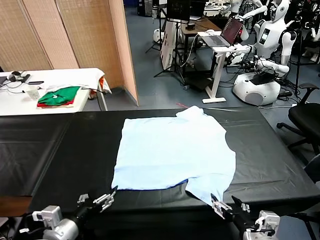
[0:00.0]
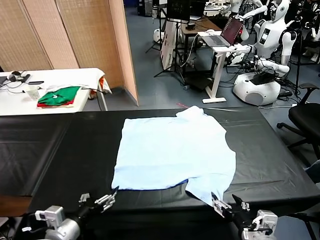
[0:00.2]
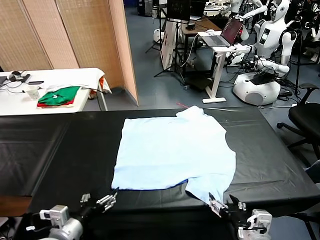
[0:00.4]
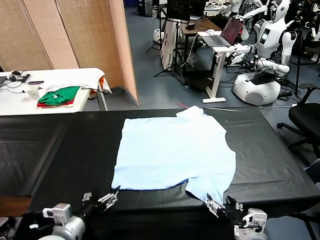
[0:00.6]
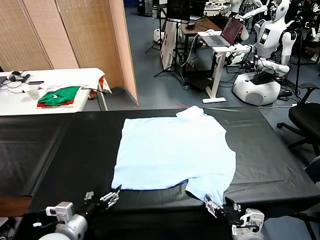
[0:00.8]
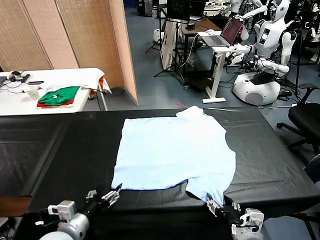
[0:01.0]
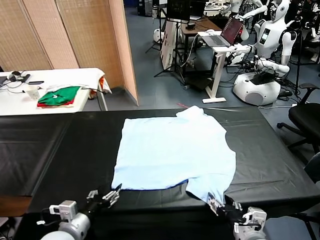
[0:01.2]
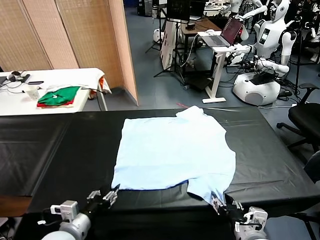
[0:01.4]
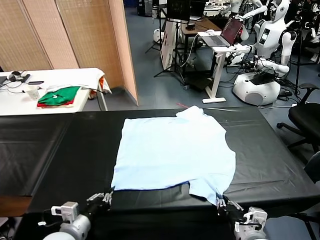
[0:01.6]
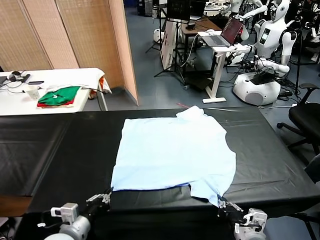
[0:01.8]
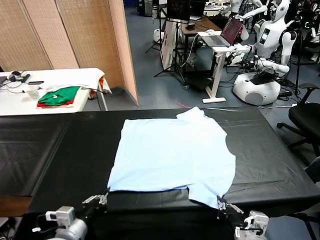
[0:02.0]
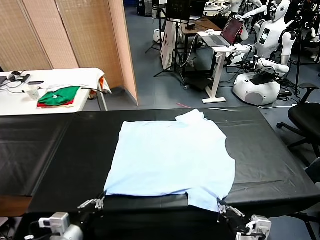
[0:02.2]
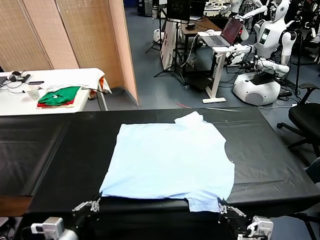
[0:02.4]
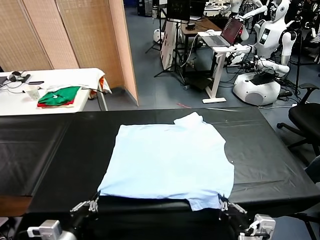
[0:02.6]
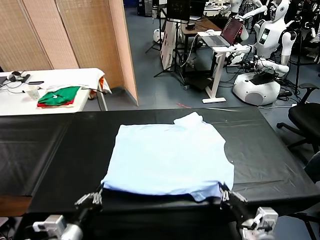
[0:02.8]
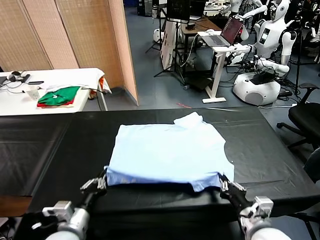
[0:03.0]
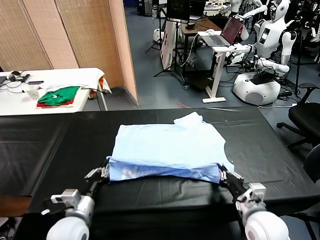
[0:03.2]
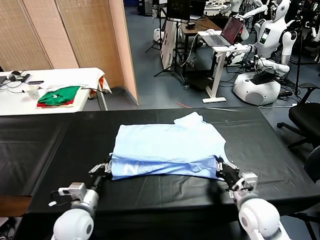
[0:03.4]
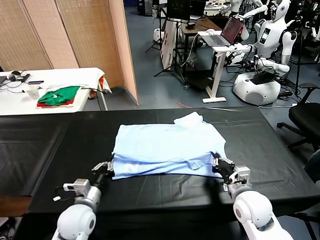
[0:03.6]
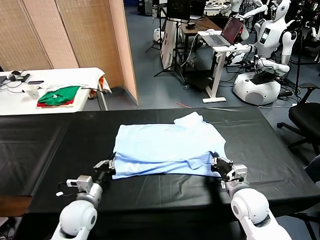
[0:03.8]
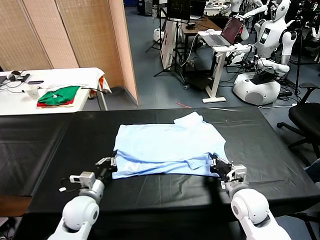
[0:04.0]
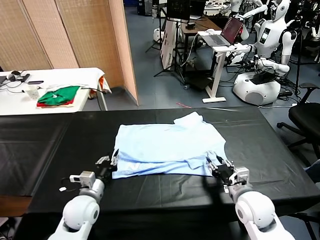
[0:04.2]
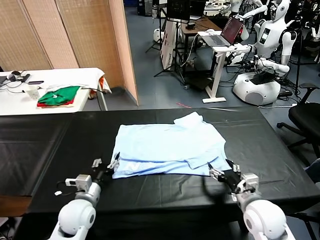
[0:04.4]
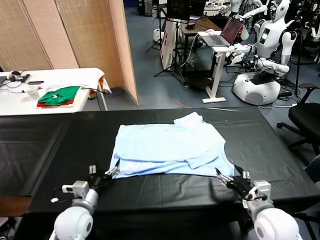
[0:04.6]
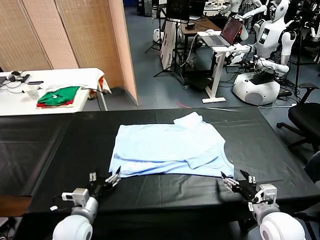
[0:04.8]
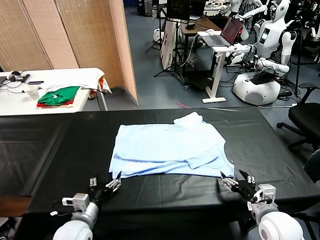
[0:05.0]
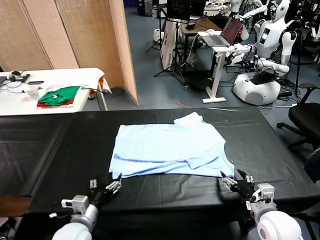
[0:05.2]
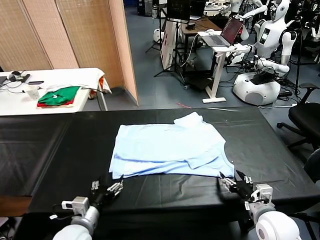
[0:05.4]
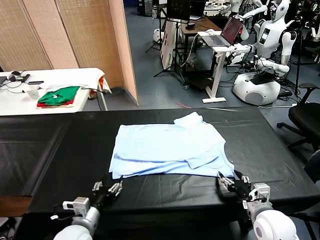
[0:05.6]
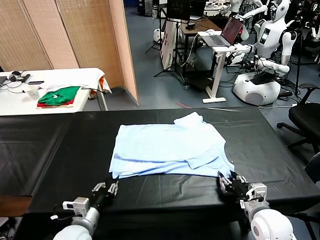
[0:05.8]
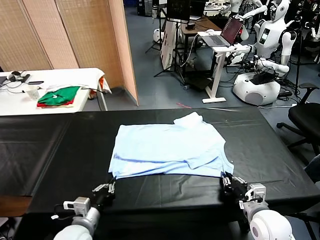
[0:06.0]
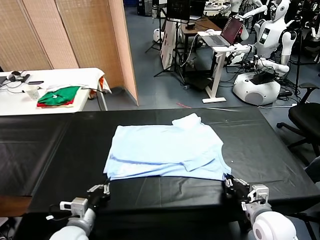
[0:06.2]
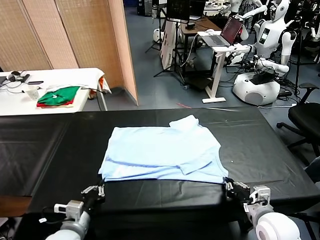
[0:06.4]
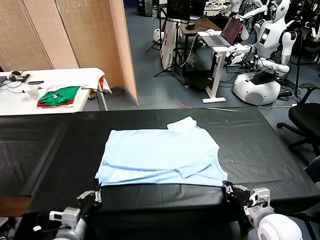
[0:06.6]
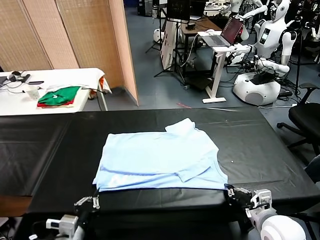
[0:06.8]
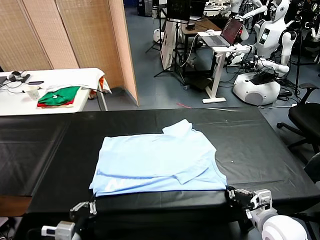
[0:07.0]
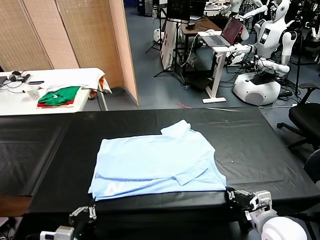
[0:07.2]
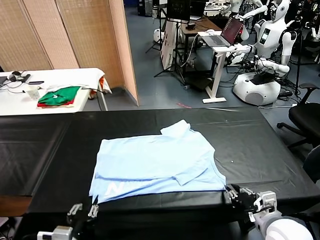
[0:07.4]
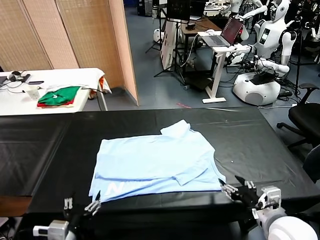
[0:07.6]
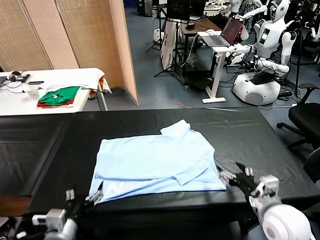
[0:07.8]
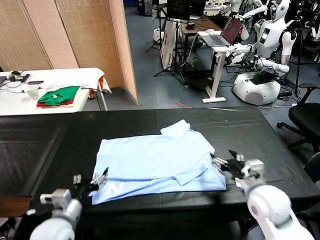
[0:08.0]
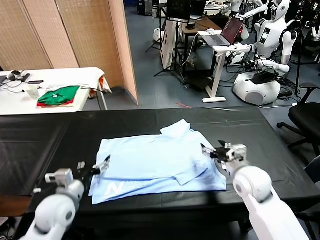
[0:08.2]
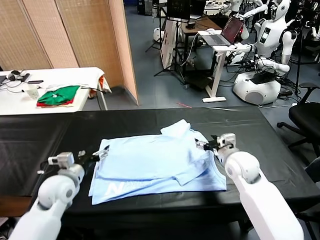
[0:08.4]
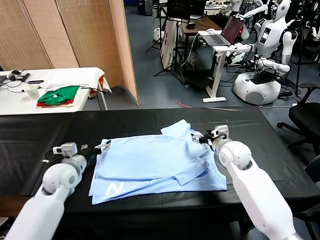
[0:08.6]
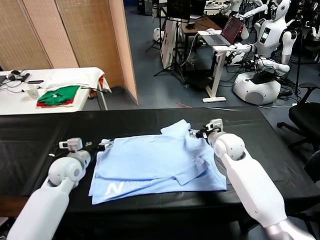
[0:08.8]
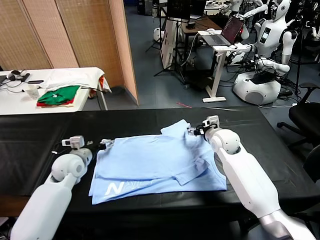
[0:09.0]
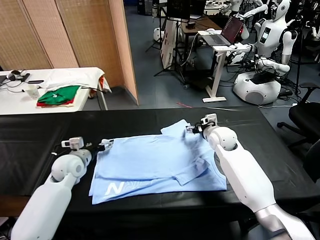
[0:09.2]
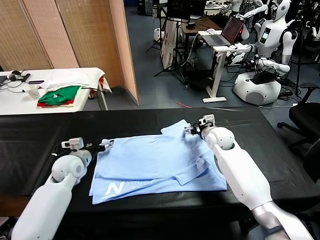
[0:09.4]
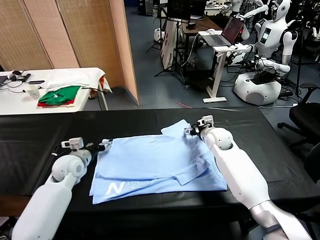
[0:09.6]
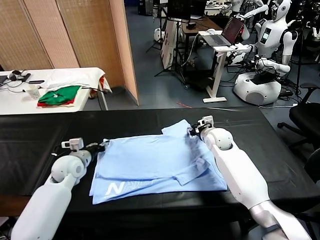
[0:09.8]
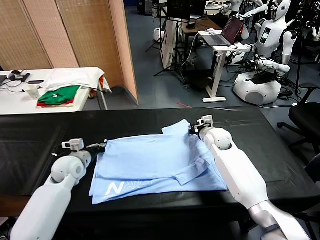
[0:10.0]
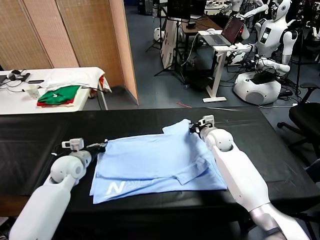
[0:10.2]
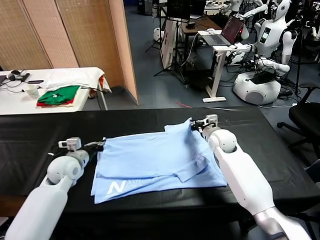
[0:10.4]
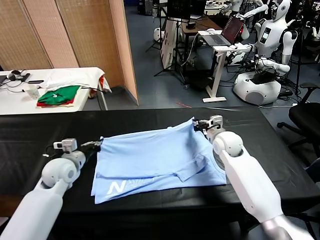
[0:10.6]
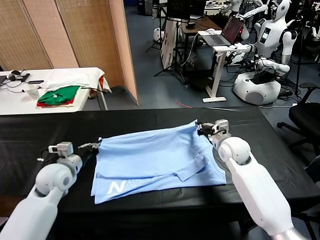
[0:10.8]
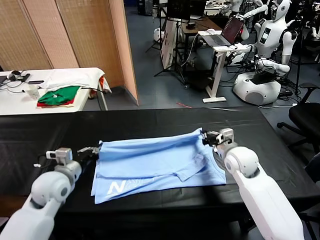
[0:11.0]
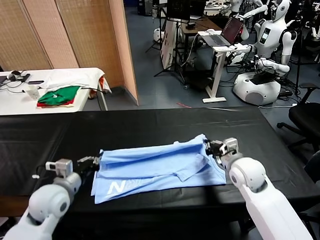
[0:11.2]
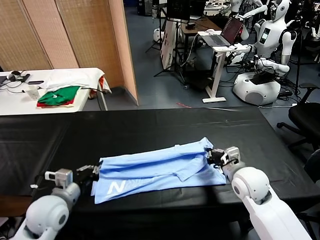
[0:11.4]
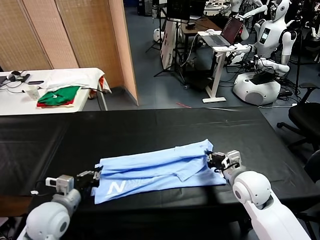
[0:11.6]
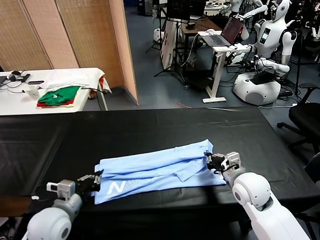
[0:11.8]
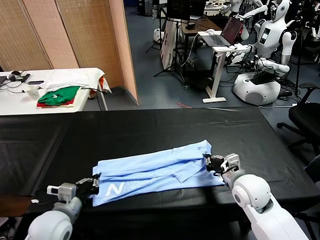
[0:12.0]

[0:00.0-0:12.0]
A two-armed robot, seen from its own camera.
Task of the whole recording: fold and organize the clothes.
Step, 0:00.0 to 0:01.6: use both grippers simultaneously to clamp the lower edge of the clothing fabric.
Step, 0:01.8 to 0:04.2: use both grippers to drag the lower edge of the fabric forward and fold it over the upper edge.
Step, 0:04.4 to 0:07.4: Drag the clothes downward with both gripper.
Step, 0:07.6 to 0:10.0: use both grippers simultaneously to clamp the upper edge of the clothing fabric.
0:01.6 to 0:03.0: The right gripper shifts approximately 10 cm forward.
0:03.0 to 0:04.4: The right gripper opens its fingers. The left gripper goes roughly 10 cm forward, and opens its fingers.
0:04.4 to 0:06.0: The left gripper travels backward by some 5 cm, and closes up, while the right gripper closes its fingers.
0:06.0 to 0:07.6: The right gripper moves upward, approximately 5 cm, and opens up. The left gripper shifts approximately 10 cm backward and upward, and opens up.
0:07.6 to 0:09.0: The grippers both shift forward by about 30 cm.
0:09.0 to 0:10.4: The left gripper closes up, while the right gripper closes its fingers.
0:10.4 to 0:12.0: The two grippers go some 20 cm backward. The right gripper opens.

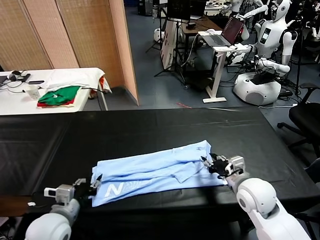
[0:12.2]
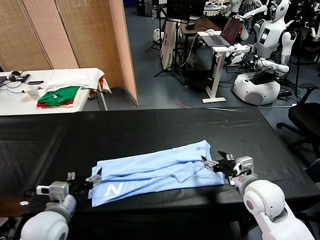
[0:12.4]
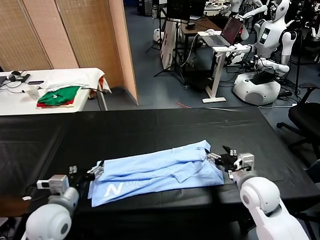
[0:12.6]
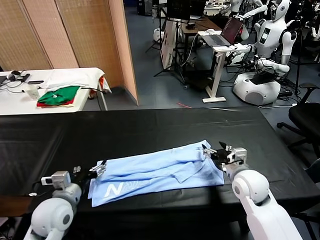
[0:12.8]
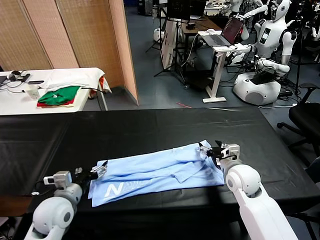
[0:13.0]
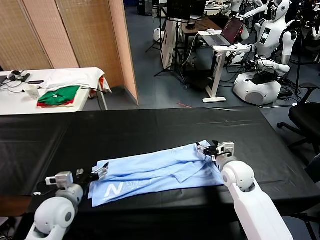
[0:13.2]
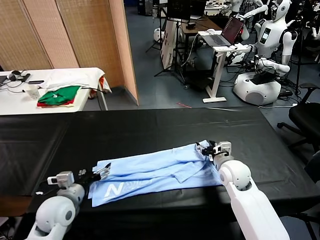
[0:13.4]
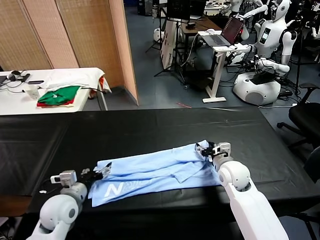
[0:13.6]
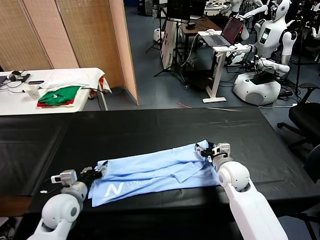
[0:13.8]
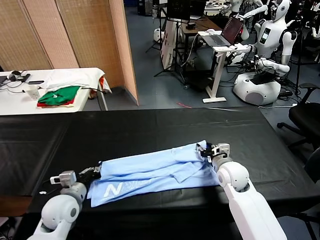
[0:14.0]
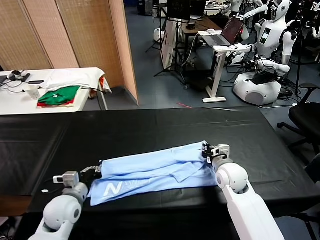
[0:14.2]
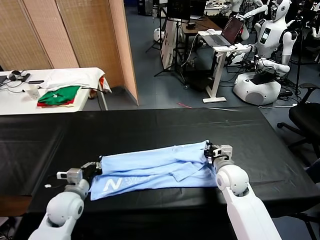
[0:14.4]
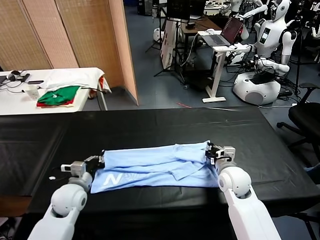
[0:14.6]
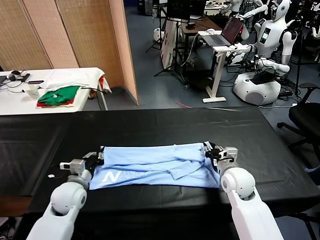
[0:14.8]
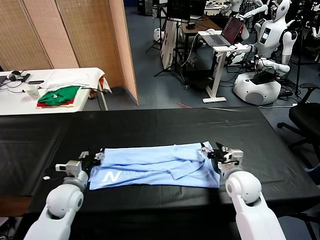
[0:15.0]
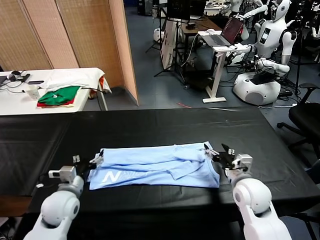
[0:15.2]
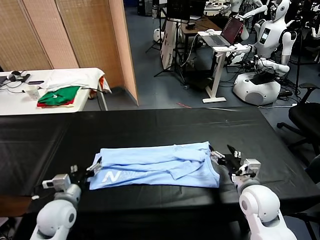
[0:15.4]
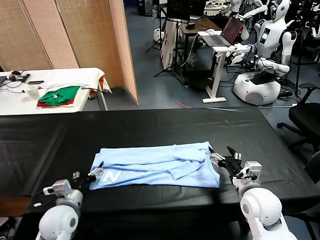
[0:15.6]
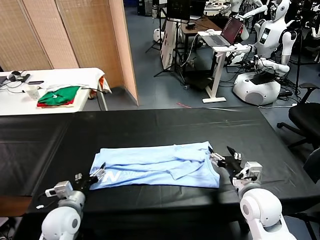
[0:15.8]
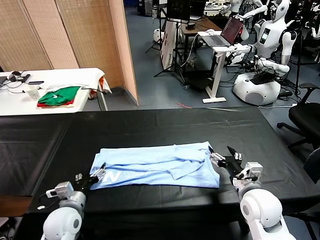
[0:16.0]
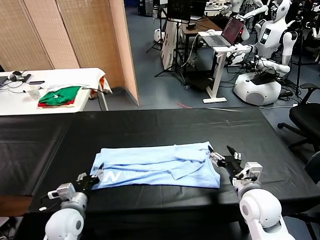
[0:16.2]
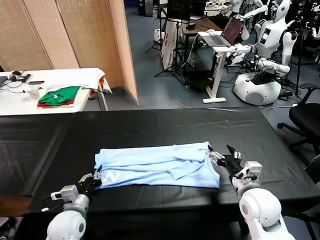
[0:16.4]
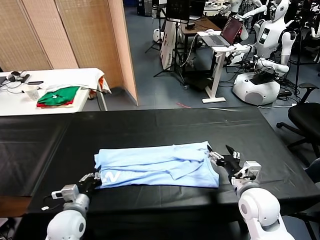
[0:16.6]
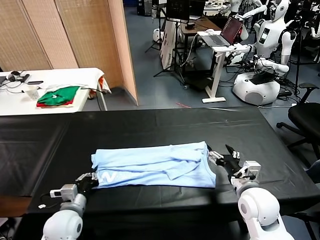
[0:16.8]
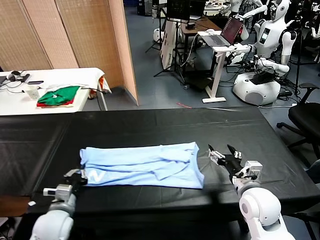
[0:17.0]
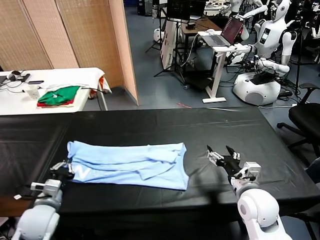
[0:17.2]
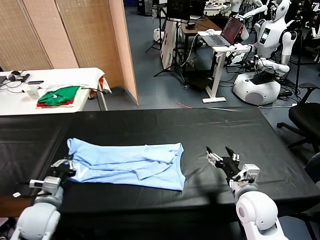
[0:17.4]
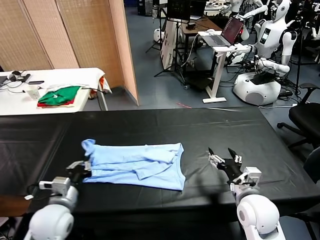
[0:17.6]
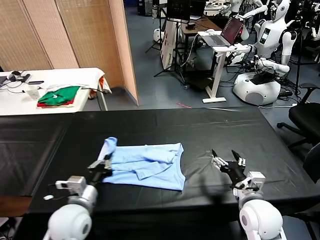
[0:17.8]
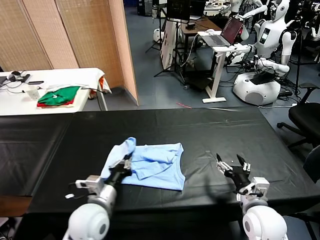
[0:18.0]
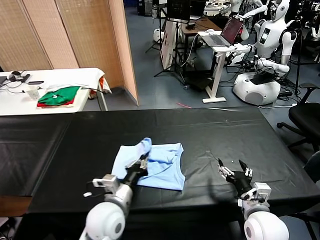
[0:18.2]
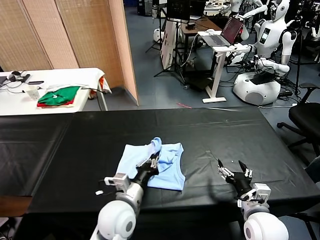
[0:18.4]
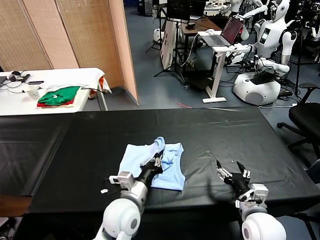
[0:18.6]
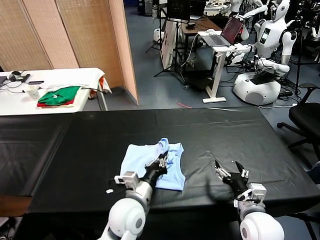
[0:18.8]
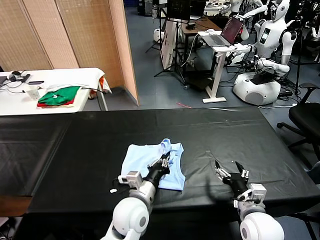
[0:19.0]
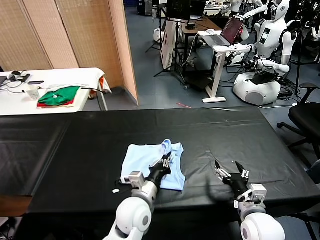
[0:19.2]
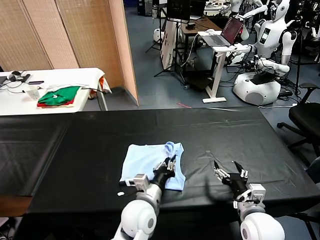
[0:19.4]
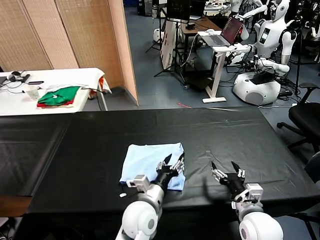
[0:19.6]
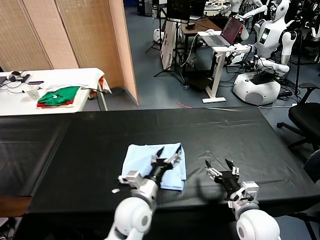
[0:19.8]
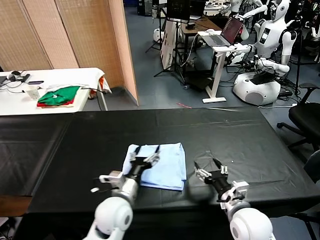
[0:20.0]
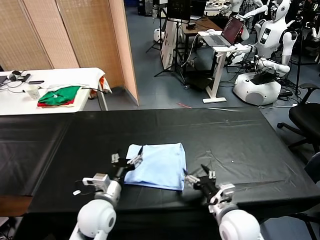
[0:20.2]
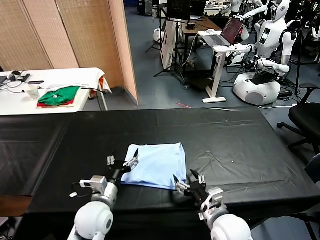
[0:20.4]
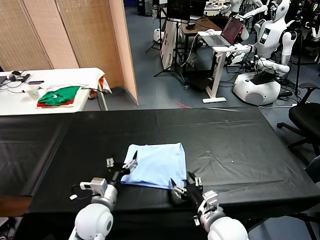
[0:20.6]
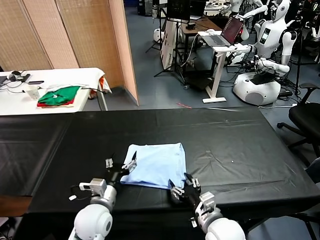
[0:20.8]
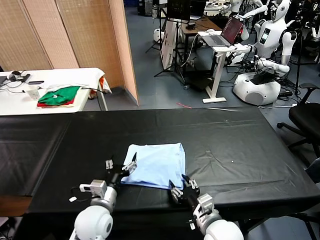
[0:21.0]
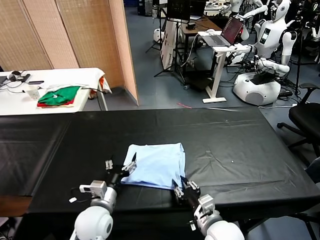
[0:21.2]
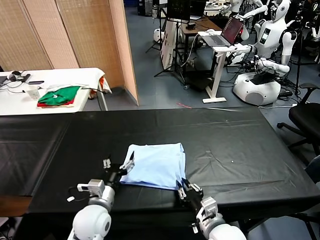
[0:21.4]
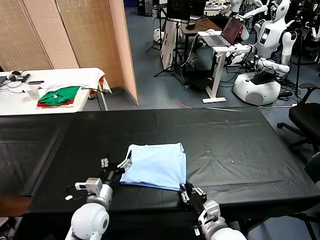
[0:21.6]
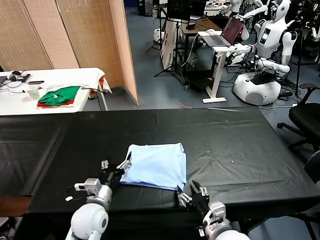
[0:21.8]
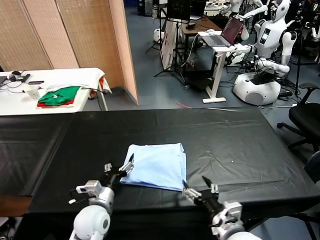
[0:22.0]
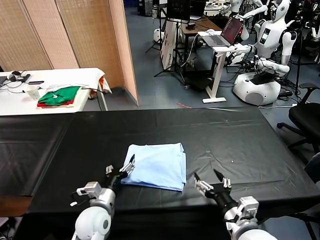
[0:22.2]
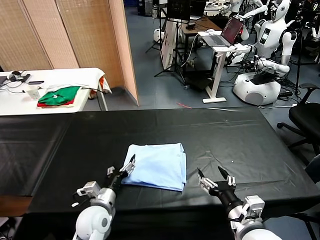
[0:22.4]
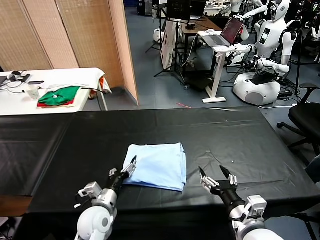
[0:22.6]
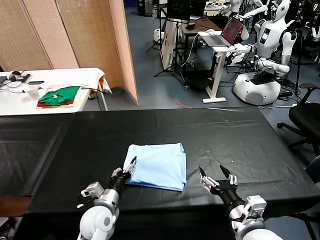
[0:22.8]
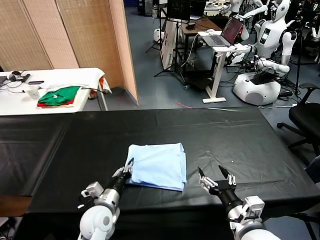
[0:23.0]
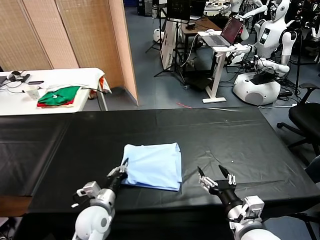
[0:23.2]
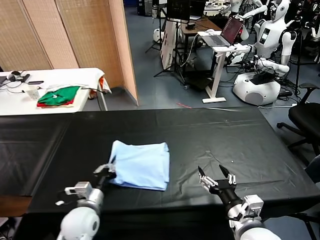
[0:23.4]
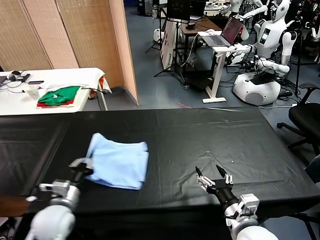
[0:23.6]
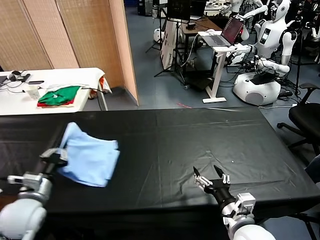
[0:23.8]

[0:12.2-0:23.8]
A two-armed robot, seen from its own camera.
Task of the whole recording: fold and organize the clothes.
Step, 0:12.6 to 0:16.4: use the left gripper to clamp the left edge of the fabric.
Step, 0:16.6 to 0:19.4: use the left gripper to drag the left edge of the fabric to the left and folds it over the right edge.
0:12.2 to 0:13.6: The left gripper heads forward, covering about 5 cm, while the right gripper moves forward and downward, about 10 cm.
0:13.6 to 0:15.0: The left gripper closes, then opens again, while the right gripper moves backward, roughly 5 cm, and closes and opens again.
0:15.0 to 0:16.6: The right gripper shifts by approximately 5 cm. Meanwhile the left gripper goes approximately 5 cm backward, and closes.
0:16.6 to 0:18.0: The right gripper ends up some 5 cm from where it was; the left gripper moves to the right and upward, about 10 cm.
0:18.0 to 0:19.4: The left gripper shifts some 15 cm to the right.
0:19.4 to 0:21.0: The grippers both shift to the left by roughly 10 cm. The left gripper opens.
0:21.0 to 0:22.4: The right gripper is displaced upward and to the right by roughly 10 cm, and closes, then opens again.
0:22.4 to 0:23.8: The left gripper goes roughly 15 cm to the left and upward, and closes up.
